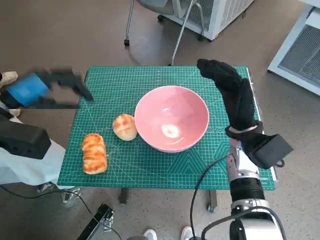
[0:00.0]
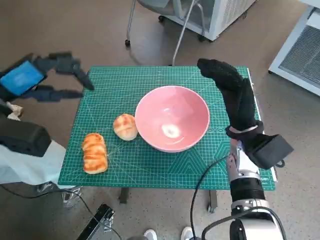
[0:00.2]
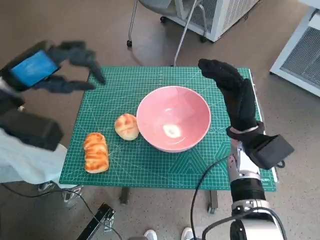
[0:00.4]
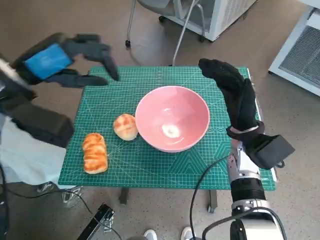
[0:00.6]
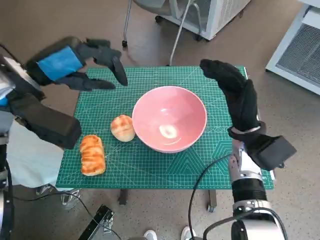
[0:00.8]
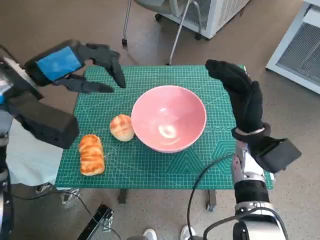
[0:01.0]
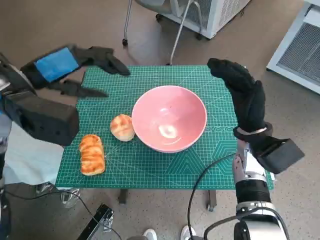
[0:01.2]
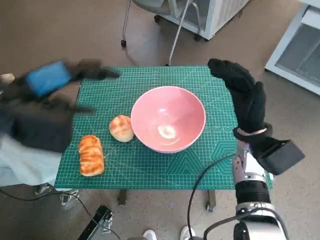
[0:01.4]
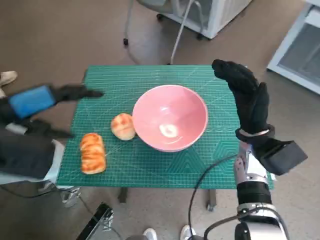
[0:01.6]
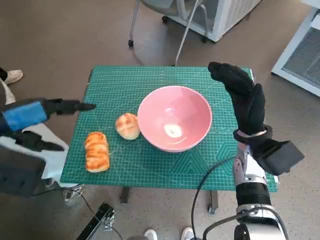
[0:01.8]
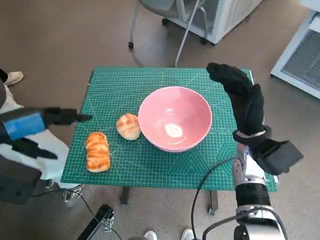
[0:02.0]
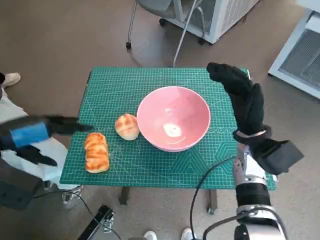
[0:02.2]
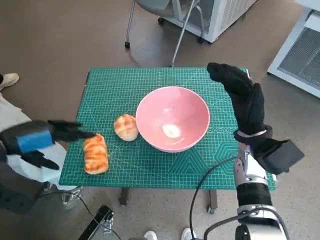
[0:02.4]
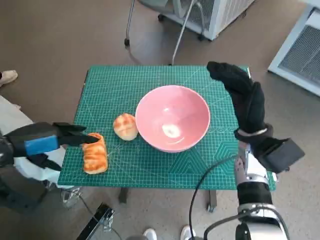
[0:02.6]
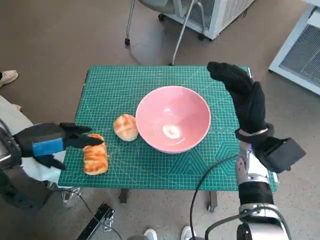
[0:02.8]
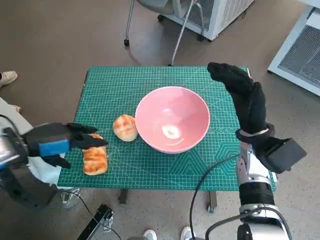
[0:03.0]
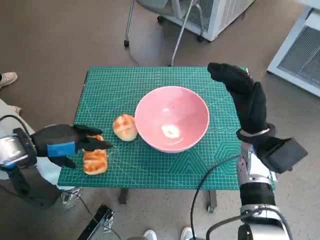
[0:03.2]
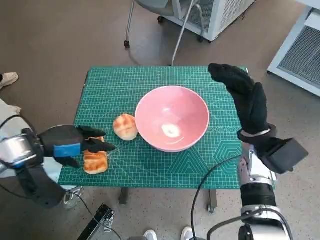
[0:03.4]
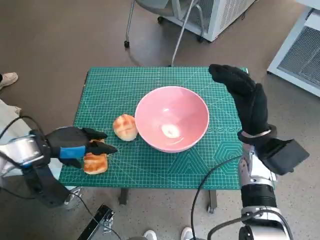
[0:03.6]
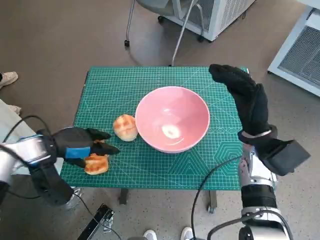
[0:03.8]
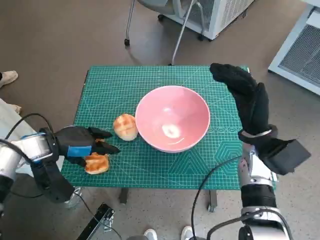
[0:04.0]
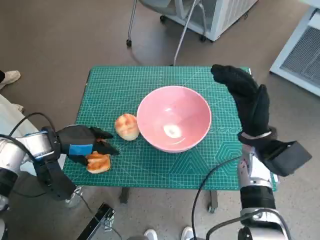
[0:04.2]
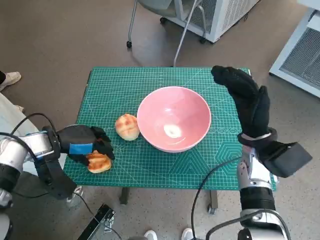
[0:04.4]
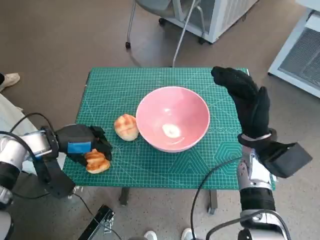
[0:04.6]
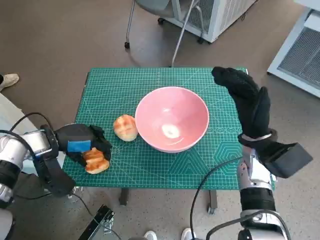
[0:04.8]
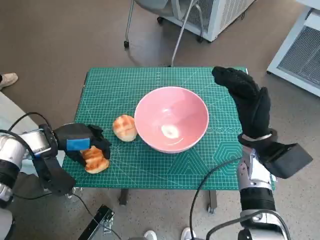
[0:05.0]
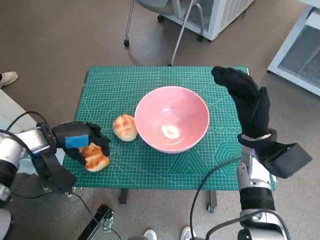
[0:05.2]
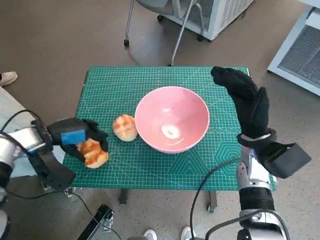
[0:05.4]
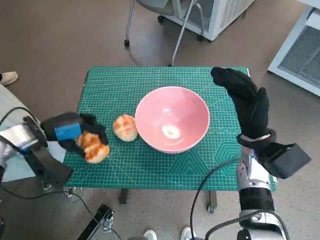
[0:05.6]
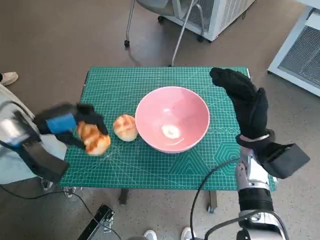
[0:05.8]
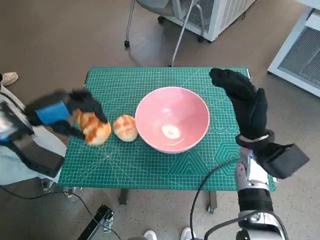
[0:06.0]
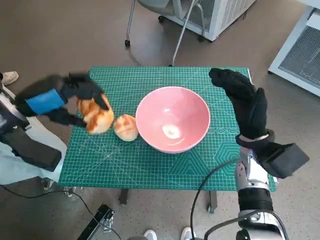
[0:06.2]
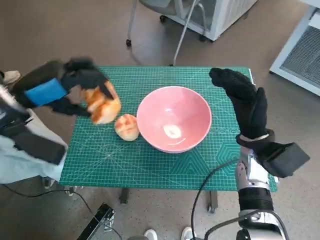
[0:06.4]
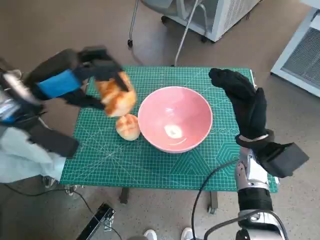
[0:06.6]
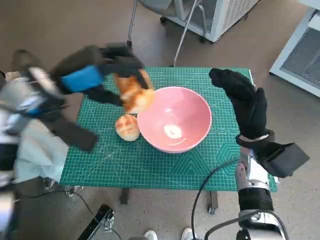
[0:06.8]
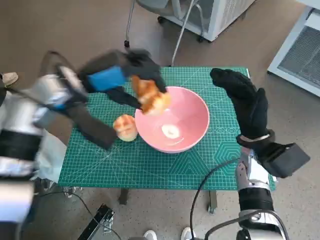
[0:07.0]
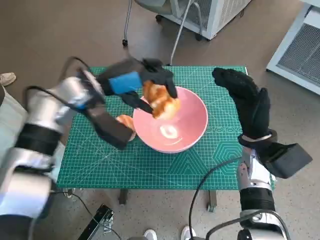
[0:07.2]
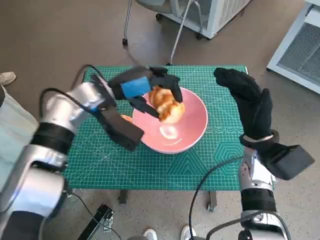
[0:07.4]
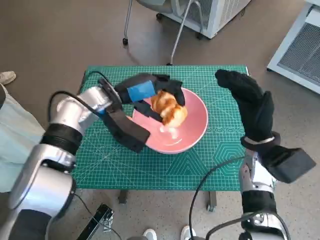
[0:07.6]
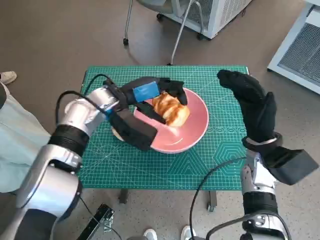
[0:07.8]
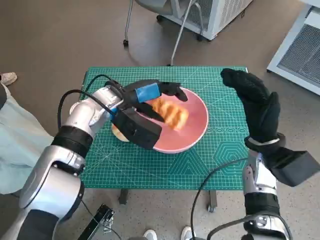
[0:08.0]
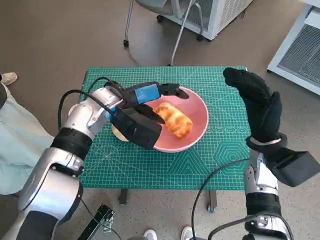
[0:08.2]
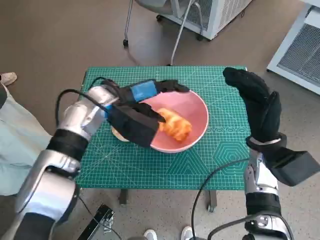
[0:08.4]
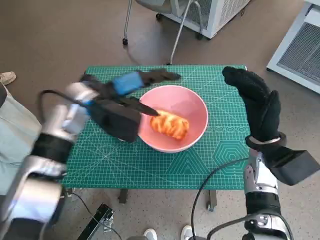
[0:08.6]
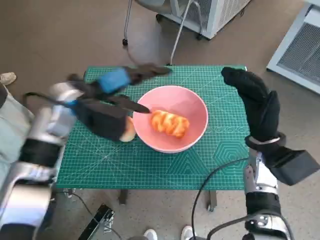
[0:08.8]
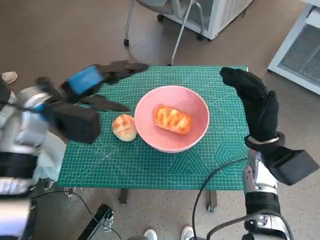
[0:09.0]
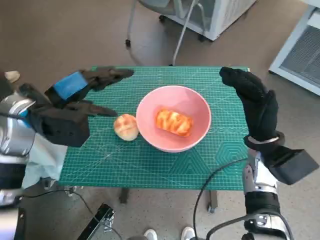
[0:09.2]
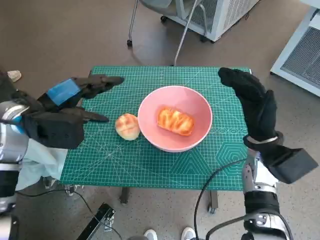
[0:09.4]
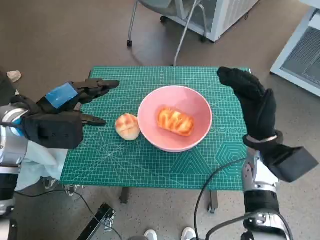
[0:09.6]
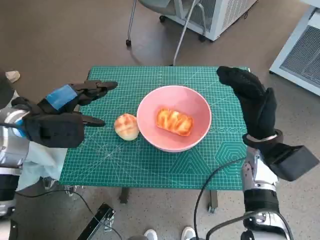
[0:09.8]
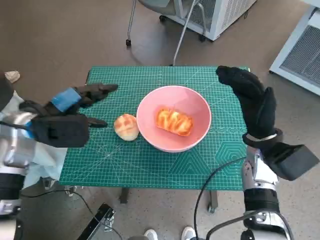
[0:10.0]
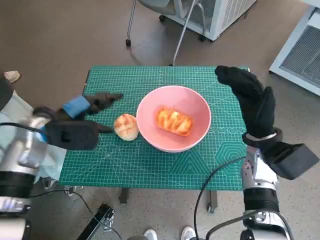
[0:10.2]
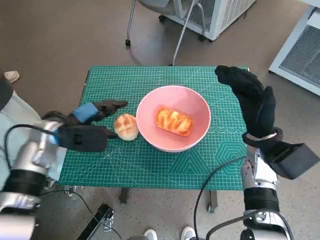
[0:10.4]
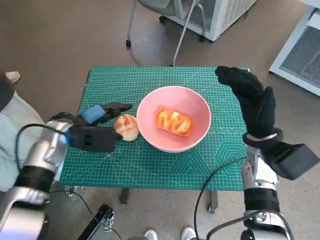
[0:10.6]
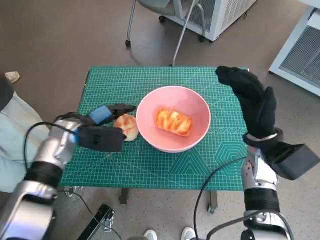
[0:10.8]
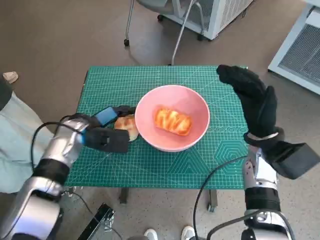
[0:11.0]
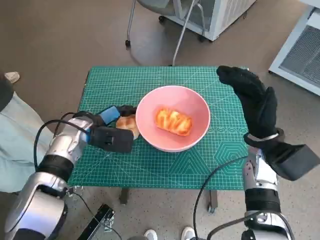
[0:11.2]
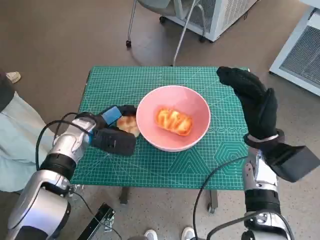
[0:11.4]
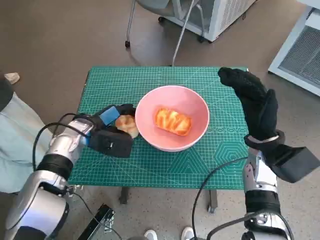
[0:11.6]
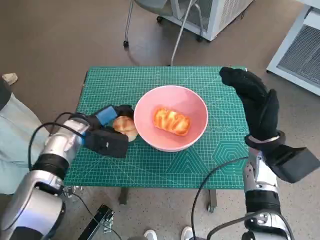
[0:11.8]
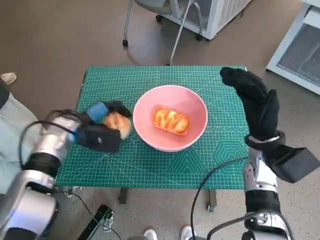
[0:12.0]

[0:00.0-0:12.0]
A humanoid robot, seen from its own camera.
Task of the whole recording: Push the bowl to the center of the table and put the bread into the bowl.
Step, 0:00.0 to 0:04.4: Grasp the long bread with left hand.
Step, 0:04.6 to 0:08.4: Place the long bread in pink bowl with left hand.
Step, 0:08.6 to 0:11.2: Grasp the round bread with left hand.
0:00.0 to 0:01.6: The left hand changes place by roughly 10 cm.
0:01.6 to 0:03.0: The left hand is displaced downward by some 10 cm.
0:03.0 to 0:04.4: The left hand heads downward, covering some 5 cm.
0:04.4 to 0:06.0: The left hand goes some 5 cm upward.
0:06.0 to 0:07.6: The left hand shifts about 15 cm to the right and forward.
0:07.6 to 0:09.0: The left hand goes about 5 cm to the left.
0:09.0 to 0:10.4: The left hand is displaced downward by approximately 10 cm.

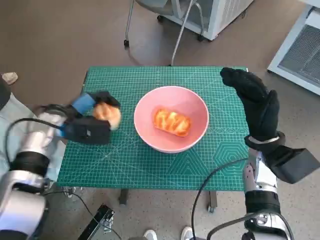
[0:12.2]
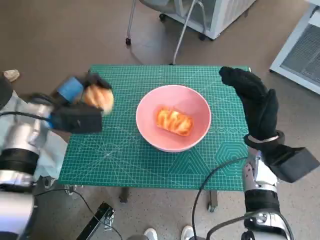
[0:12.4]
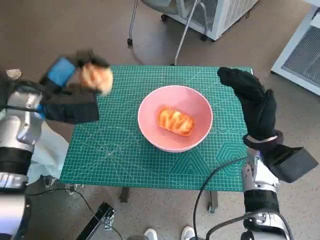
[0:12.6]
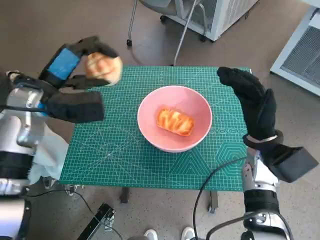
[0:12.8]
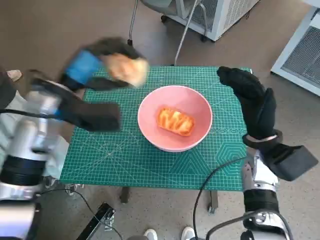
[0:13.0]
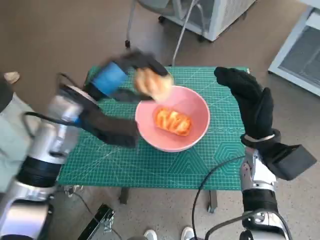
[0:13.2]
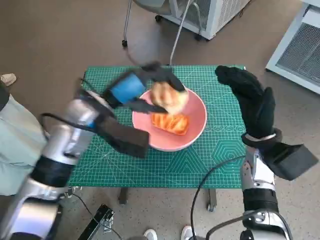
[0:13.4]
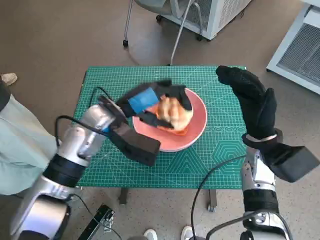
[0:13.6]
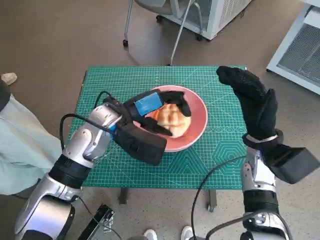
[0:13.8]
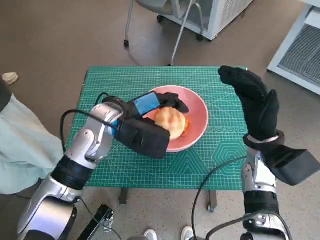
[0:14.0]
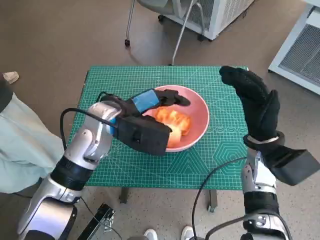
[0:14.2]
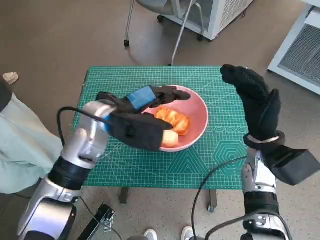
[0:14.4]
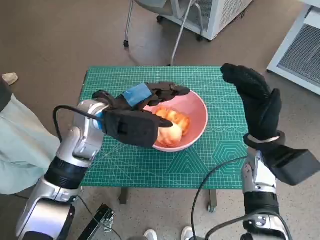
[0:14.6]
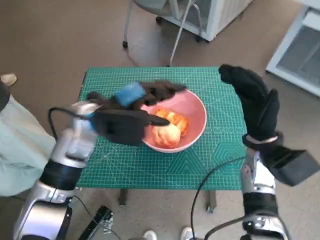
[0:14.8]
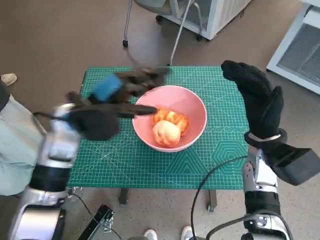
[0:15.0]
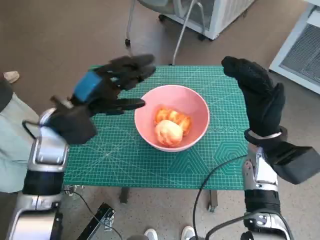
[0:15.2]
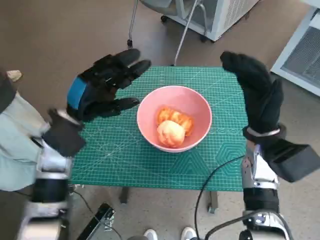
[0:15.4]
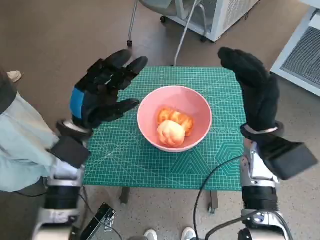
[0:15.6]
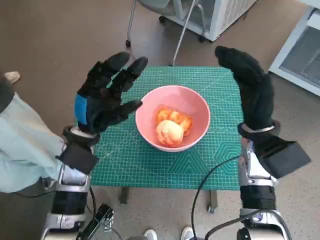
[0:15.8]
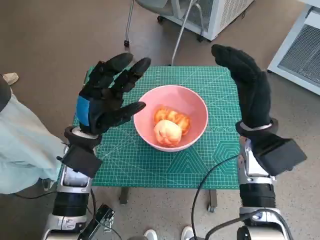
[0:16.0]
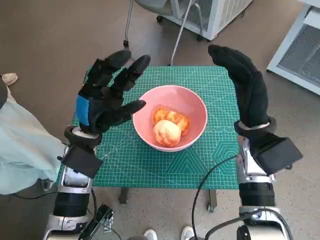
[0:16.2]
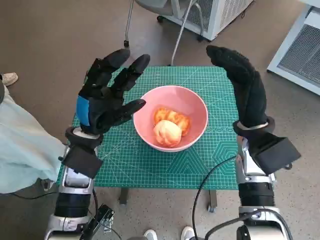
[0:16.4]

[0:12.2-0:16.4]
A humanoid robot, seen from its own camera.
Task of the whole recording: Push the bowl to the center of the table and put the bread into the bowl.
Step, 0:12.2 to 0:14.6: Place the round bread in pink bowl with left hand.
0:12.2 to 0:13.6: The left hand is displaced to the right and upward by about 15 cm.
0:15.0 to 0:16.4: The left hand travels downward by roughly 5 cm.
